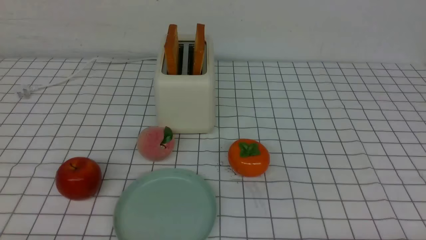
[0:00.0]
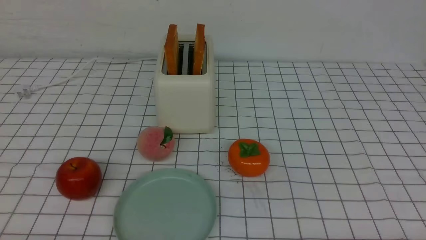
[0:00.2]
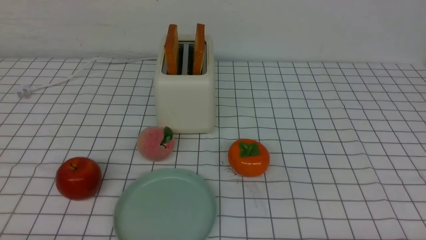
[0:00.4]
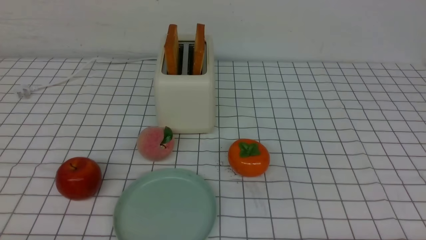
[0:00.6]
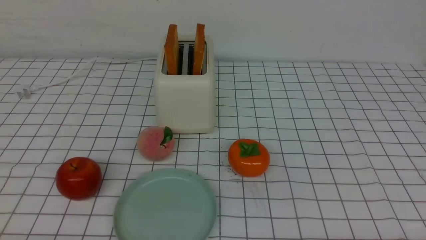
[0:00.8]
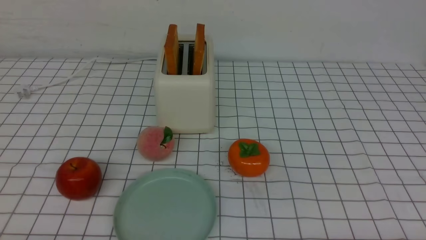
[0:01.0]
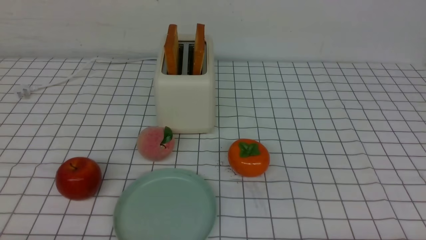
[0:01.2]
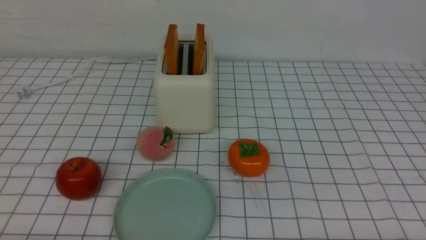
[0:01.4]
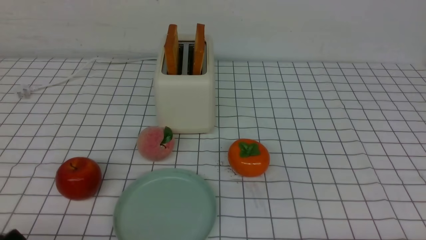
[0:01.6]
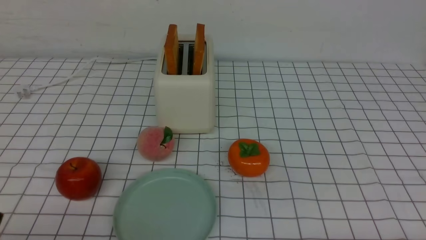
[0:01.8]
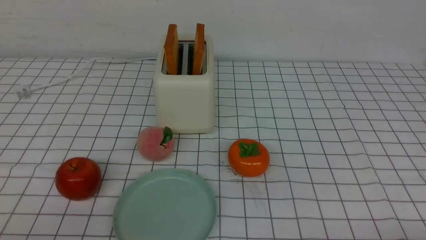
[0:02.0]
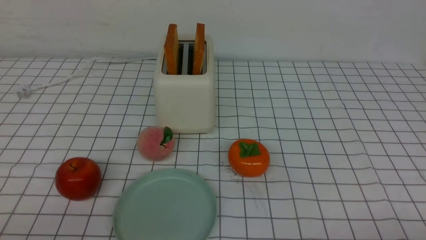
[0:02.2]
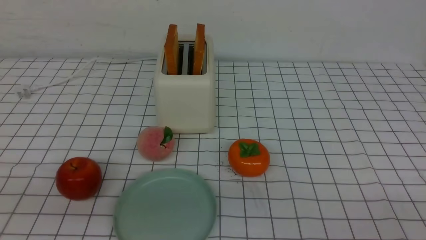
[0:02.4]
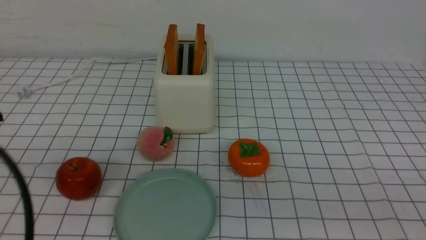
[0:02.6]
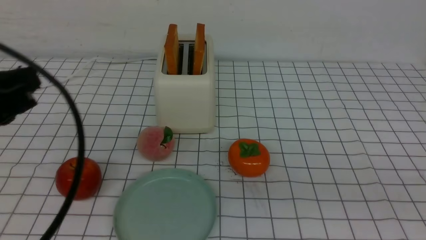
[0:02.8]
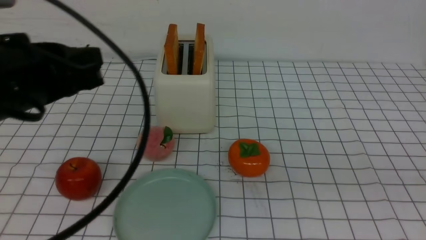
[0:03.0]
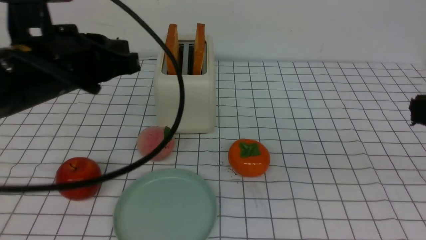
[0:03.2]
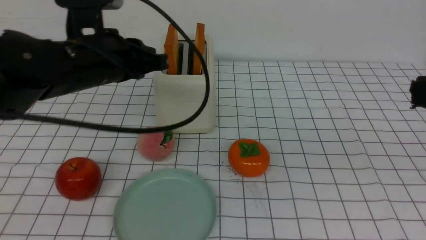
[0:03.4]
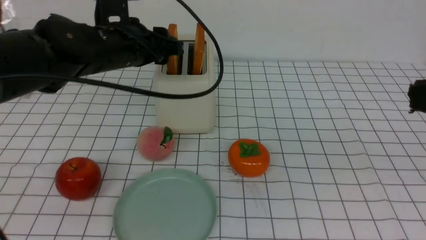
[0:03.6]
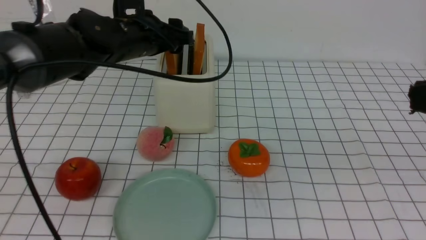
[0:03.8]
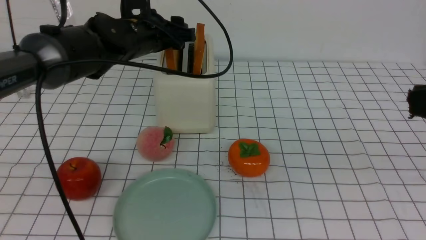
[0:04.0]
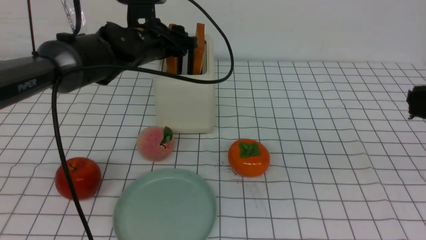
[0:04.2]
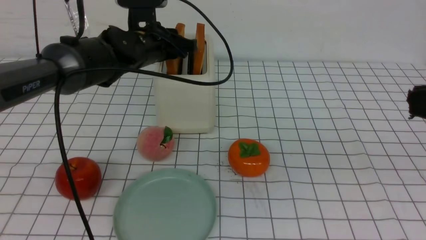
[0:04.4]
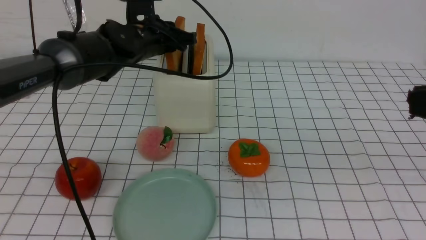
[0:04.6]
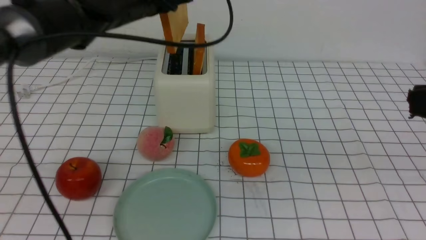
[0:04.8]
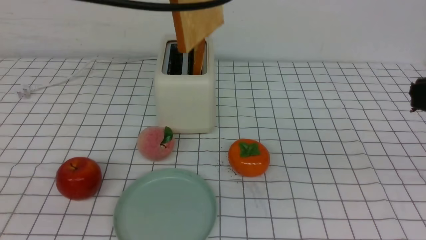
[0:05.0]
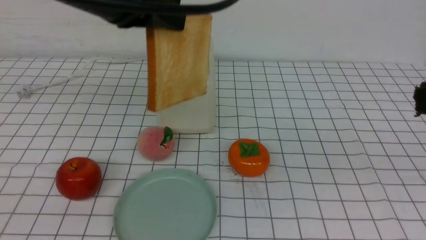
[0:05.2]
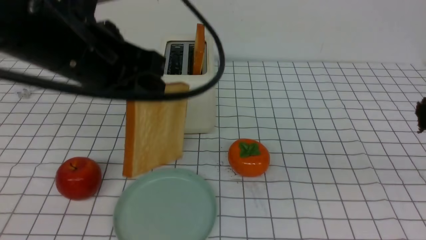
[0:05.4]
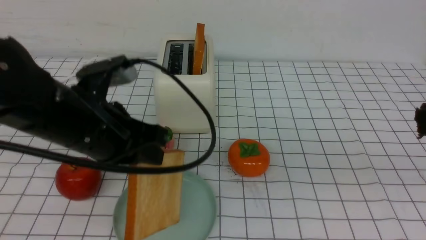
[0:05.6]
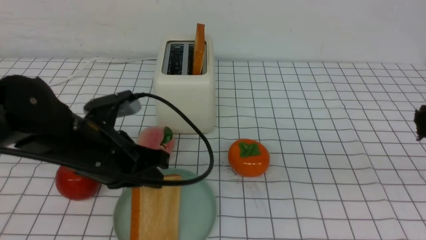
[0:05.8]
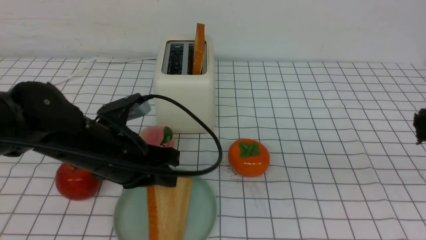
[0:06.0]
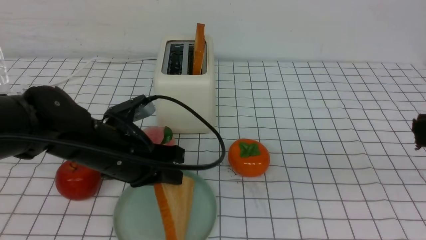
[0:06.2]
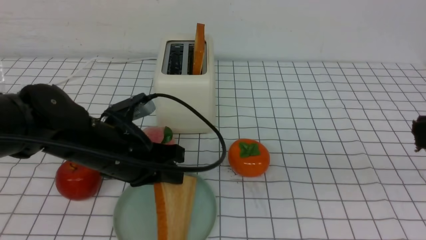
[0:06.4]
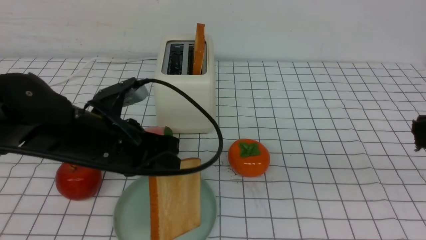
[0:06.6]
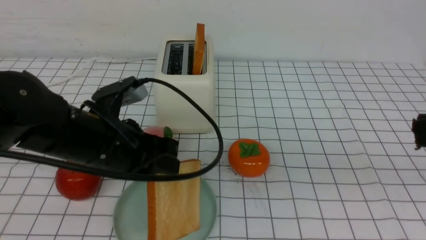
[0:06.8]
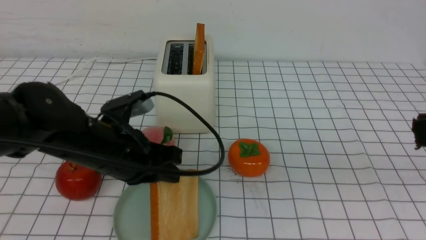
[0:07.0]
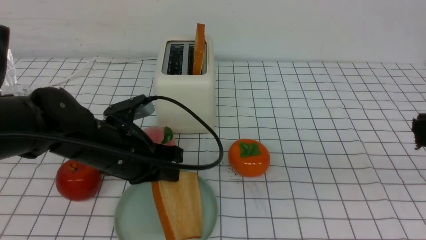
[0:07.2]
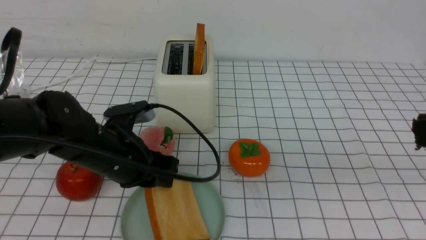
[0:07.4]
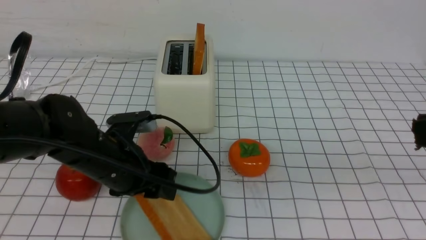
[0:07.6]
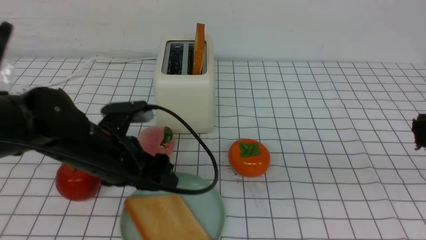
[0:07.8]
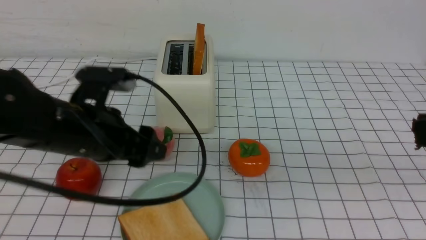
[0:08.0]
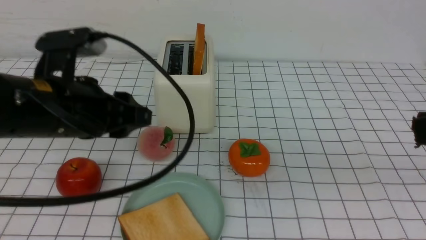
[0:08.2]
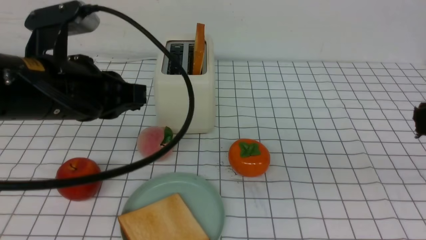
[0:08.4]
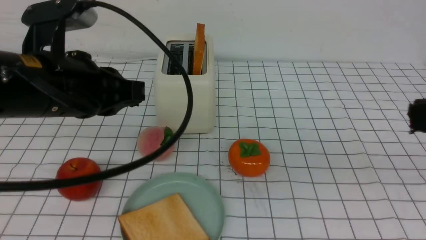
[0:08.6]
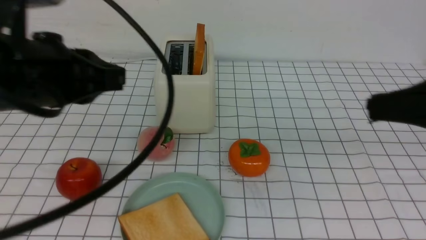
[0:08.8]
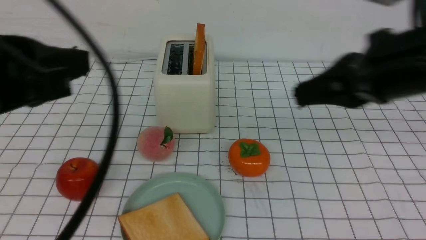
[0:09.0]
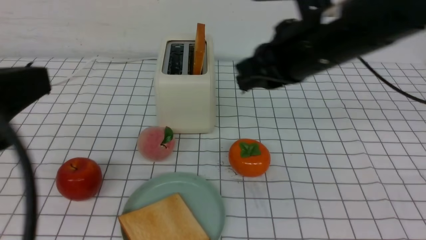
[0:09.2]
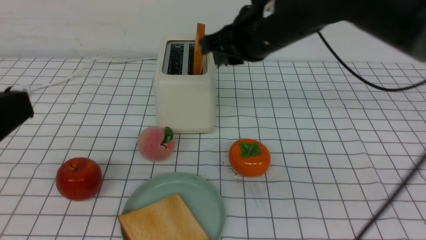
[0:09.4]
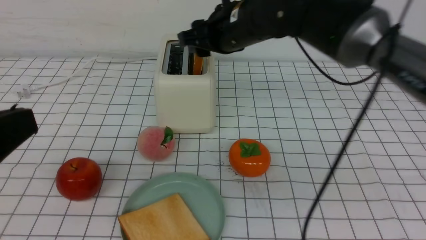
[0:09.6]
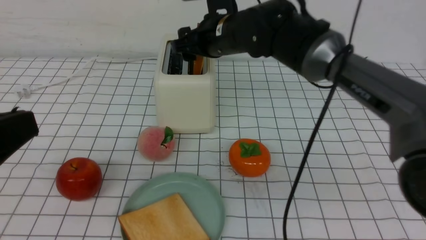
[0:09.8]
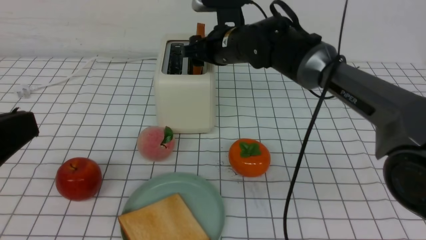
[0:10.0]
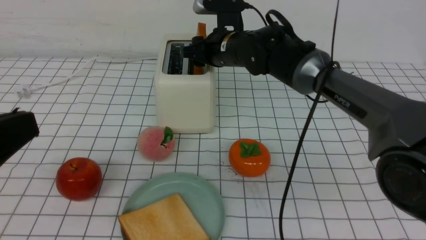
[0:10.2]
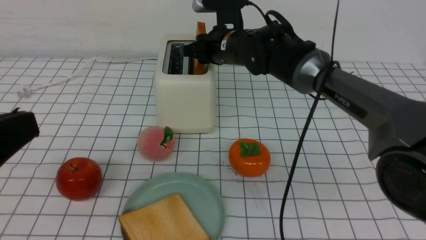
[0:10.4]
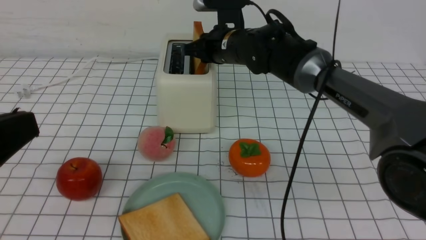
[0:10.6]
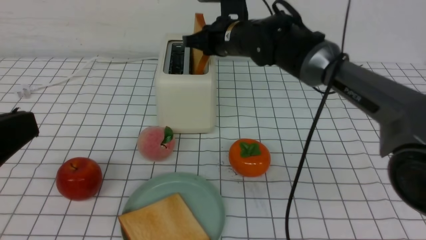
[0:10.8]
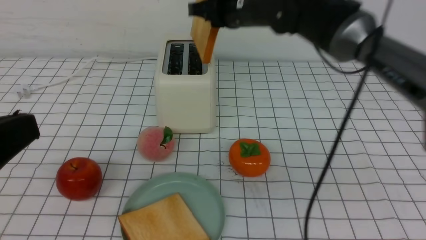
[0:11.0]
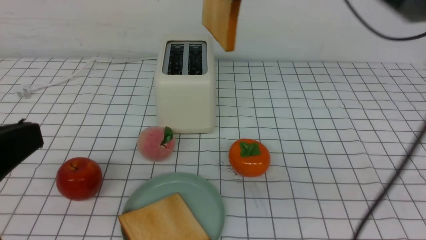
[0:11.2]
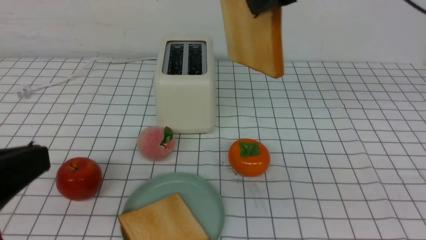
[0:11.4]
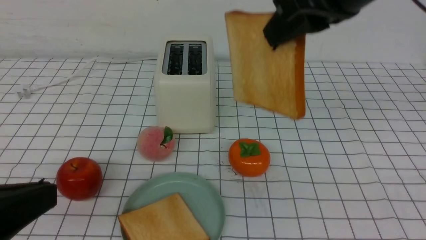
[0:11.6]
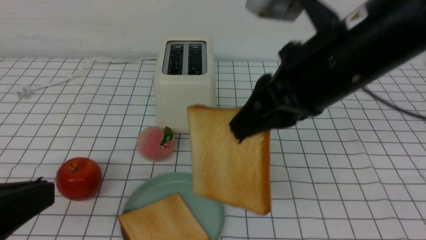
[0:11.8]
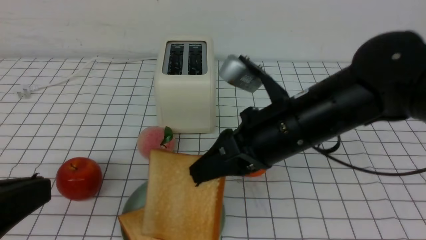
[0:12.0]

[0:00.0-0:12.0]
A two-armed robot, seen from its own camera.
Task of the whole recording: take toasted bread from bread machine on white checkered table place on plate.
Step, 0:00.0 to 0:04.6: use the left arm to take out a slice of bread.
Step, 0:04.8 to 0:08.0: use the left arm to put a slice of bread into the empty plate.
Step, 0:08.2 to 0:11.0: use the right arm to take out a slice of bread.
0:01.6 to 0:03.0: The left gripper goes roughly 25 cm upward and forward, and closes.
0:03.0 to 0:04.4: The left gripper travels forward by roughly 25 cm, and opens its fingers.
0:04.4 to 0:06.0: The left gripper heads backward, covering some 20 cm.
0:06.0 to 0:07.6: The left gripper opens.
0:07.6 to 0:09.0: The left gripper heads upward and backward, covering approximately 20 cm, and closes. Meanwhile the right gripper goes some 15 cm forward and to the left.
0:09.0 to 0:10.4: The left gripper heads backward, covering approximately 5 cm; the right gripper shifts roughly 30 cm forward, to the left and downward, and opens.
0:10.4 to 0:12.0: The right gripper heads backward, covering about 20 cm.

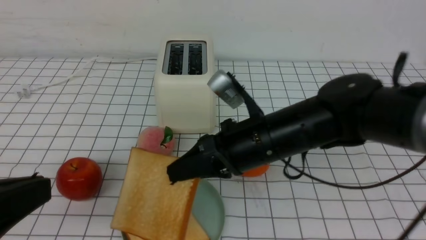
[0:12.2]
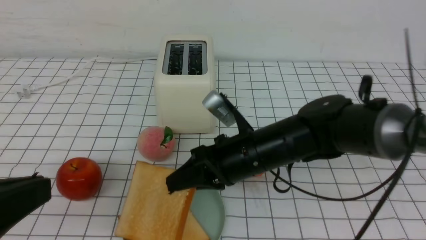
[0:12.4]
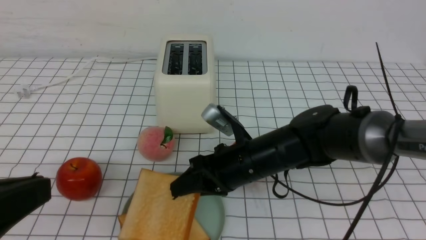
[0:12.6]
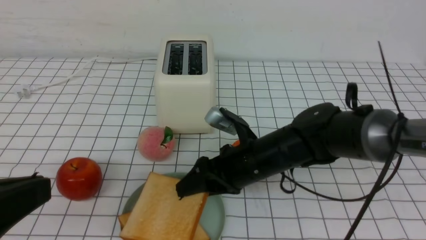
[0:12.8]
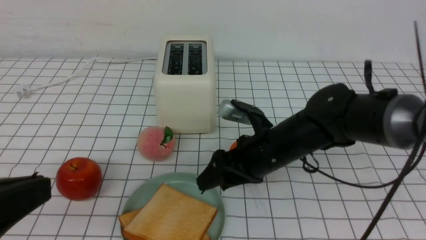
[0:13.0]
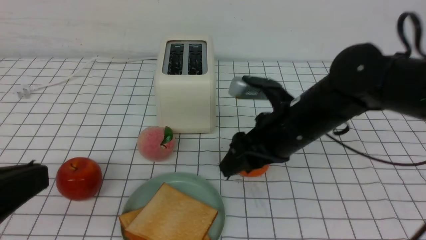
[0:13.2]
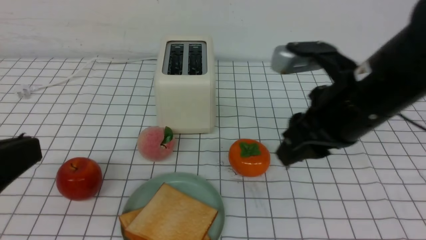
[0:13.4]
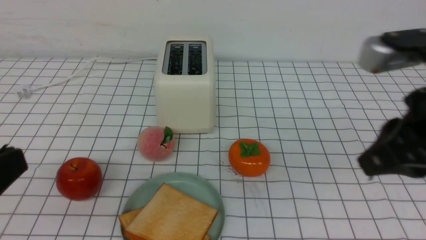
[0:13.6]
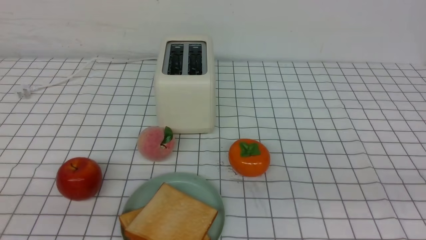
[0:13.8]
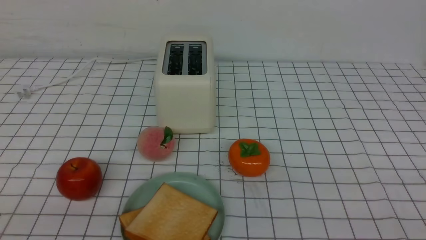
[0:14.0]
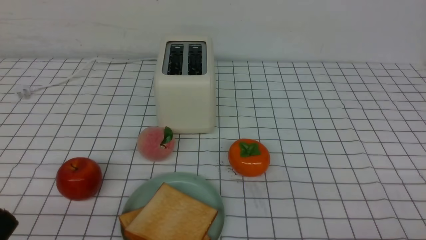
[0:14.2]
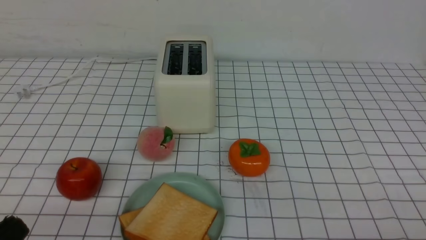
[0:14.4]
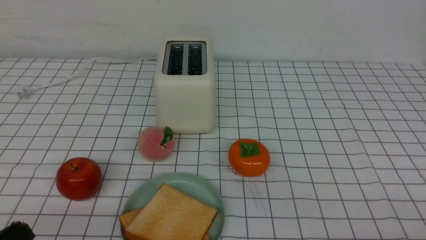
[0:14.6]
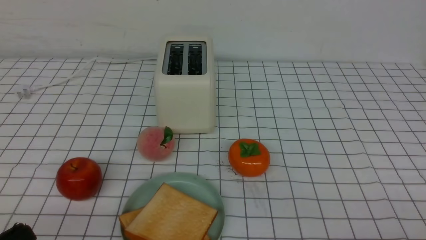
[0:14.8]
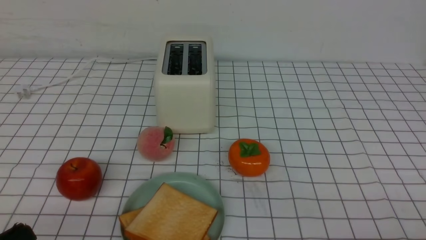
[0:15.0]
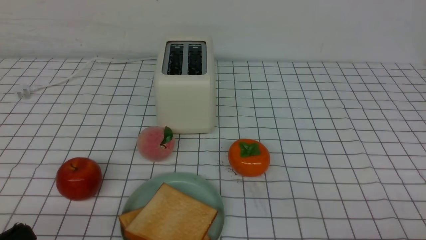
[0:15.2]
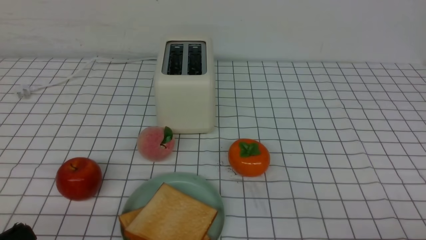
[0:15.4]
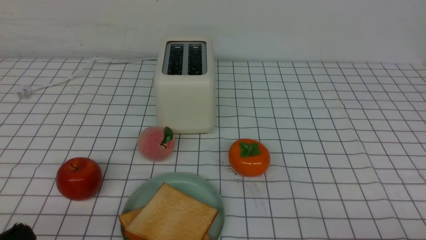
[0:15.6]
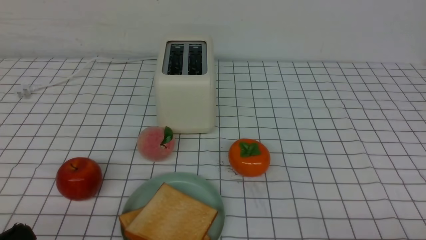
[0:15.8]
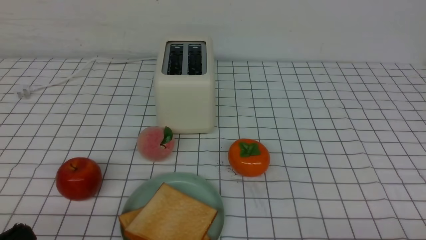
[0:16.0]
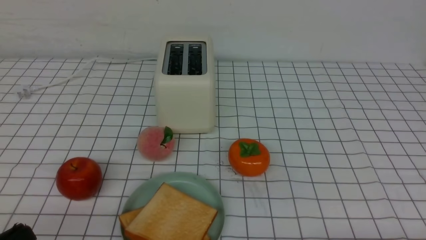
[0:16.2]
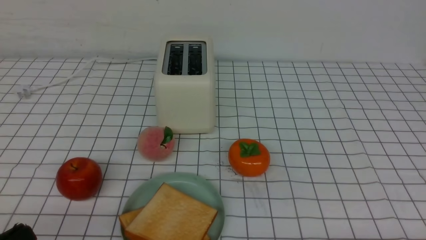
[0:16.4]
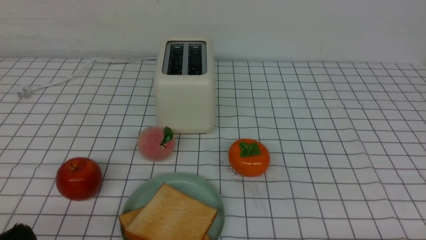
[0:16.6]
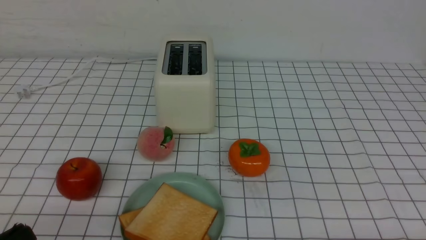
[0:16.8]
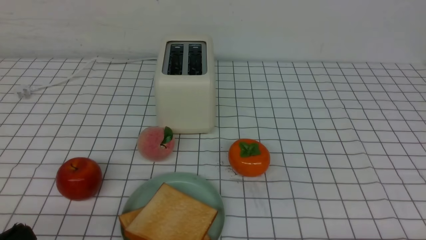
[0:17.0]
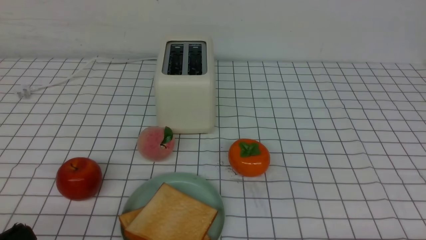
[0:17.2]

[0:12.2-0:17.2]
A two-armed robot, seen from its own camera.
Task of the whole recording: take toasted bread from bread machine on white checkered table place on plate.
0:12.2 to 0:13.8: The left gripper ends up some 5 cm from where it was, while the right gripper shifts approximately 30 cm to the right, backward and upward, and opens, then closes once more.
0:13.8 to 0:15.6: The right gripper goes some 15 cm downward and to the right. The left gripper shifts roughly 5 cm downward.
